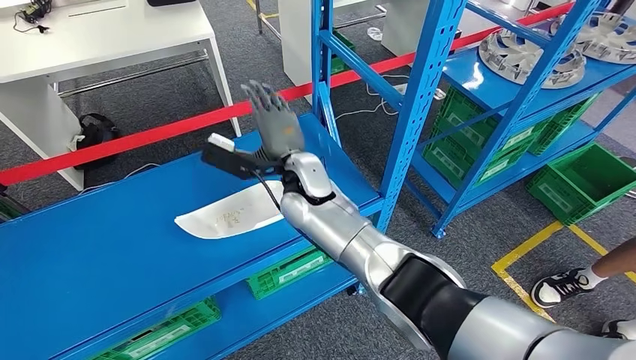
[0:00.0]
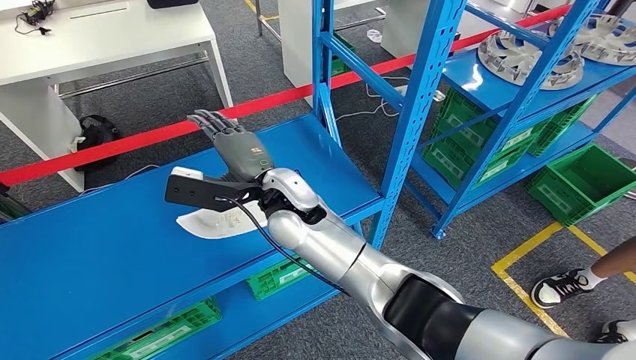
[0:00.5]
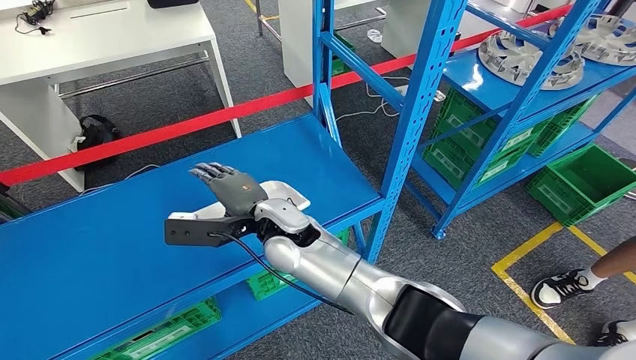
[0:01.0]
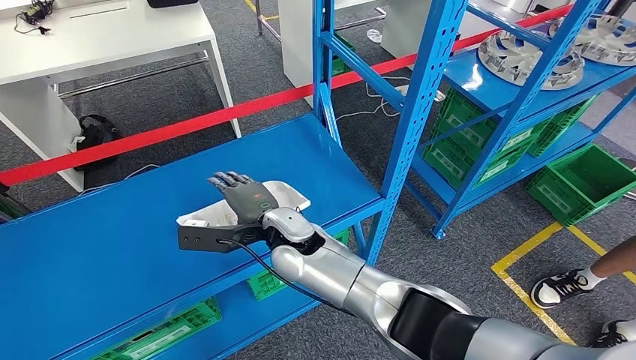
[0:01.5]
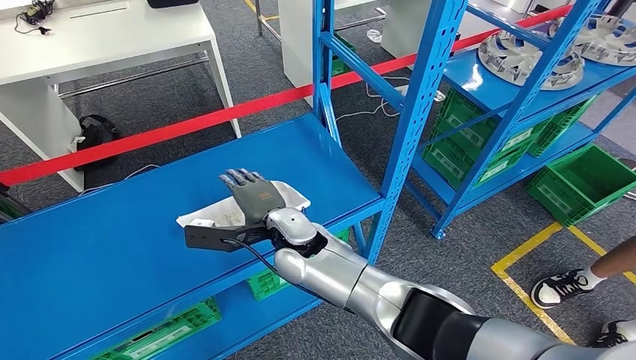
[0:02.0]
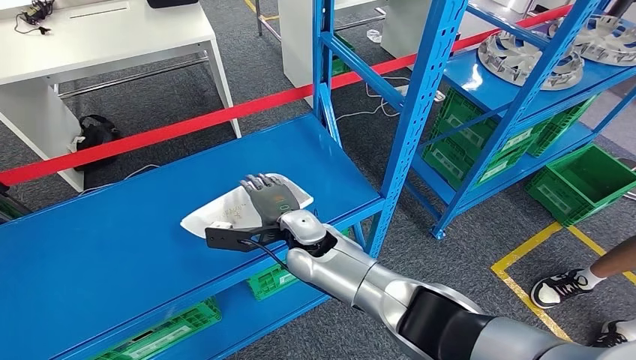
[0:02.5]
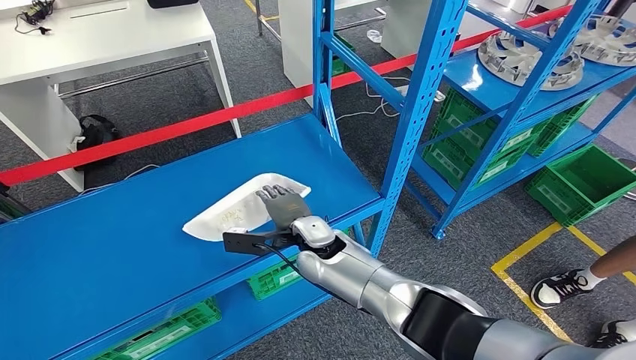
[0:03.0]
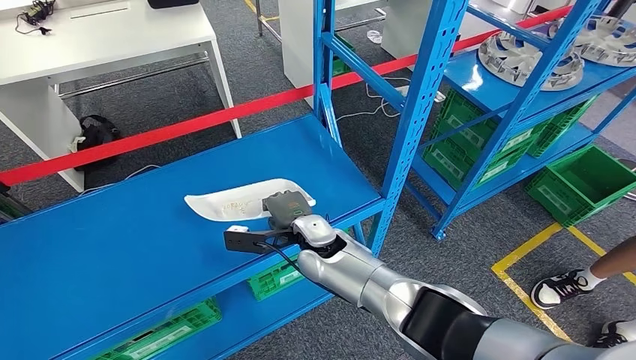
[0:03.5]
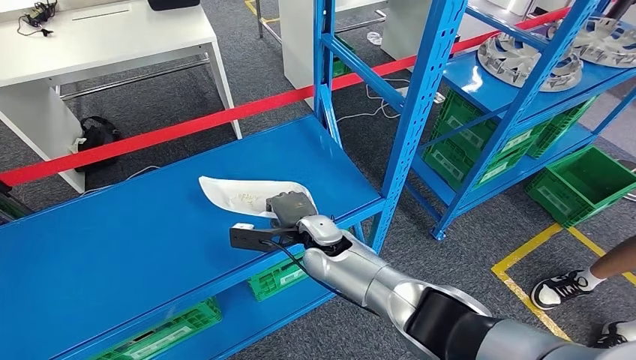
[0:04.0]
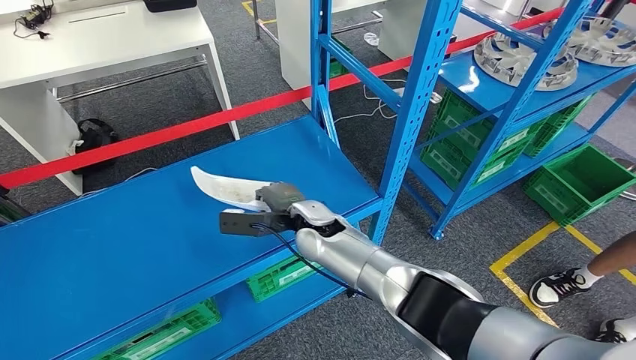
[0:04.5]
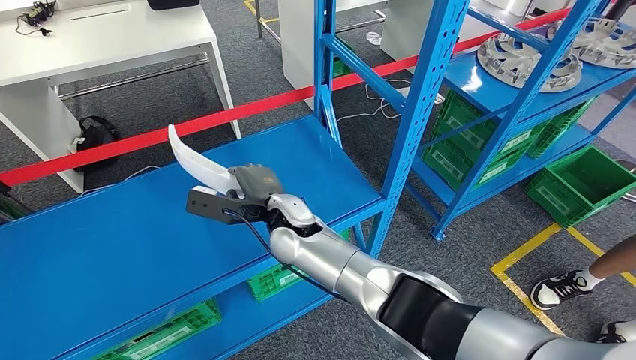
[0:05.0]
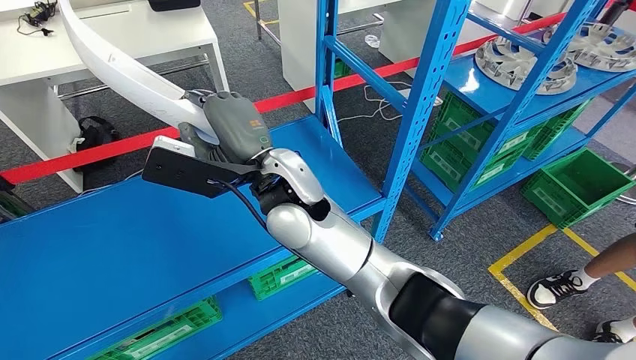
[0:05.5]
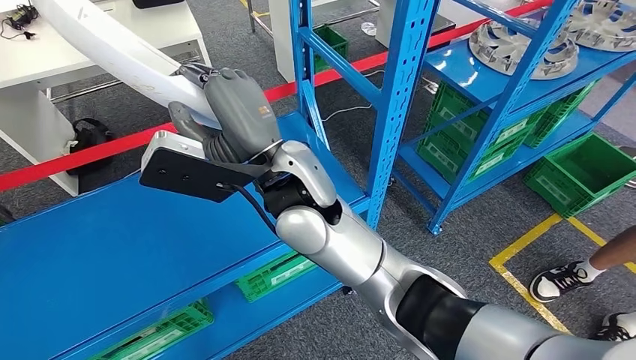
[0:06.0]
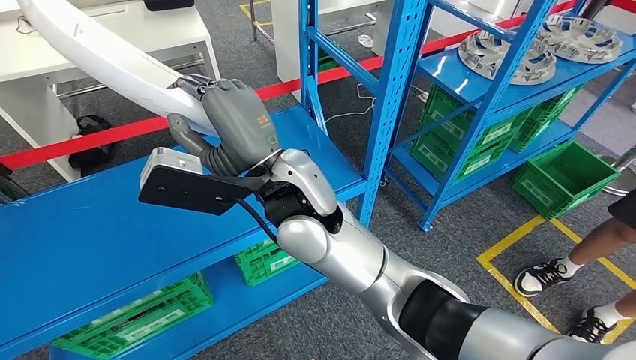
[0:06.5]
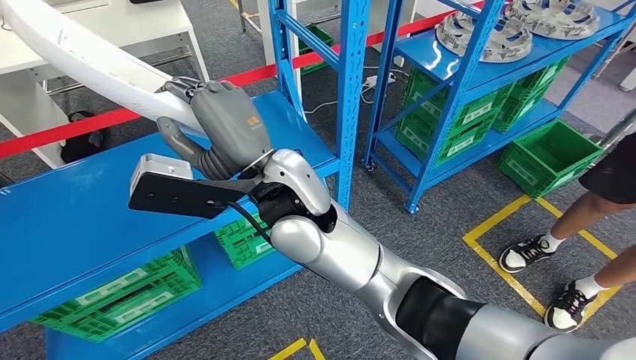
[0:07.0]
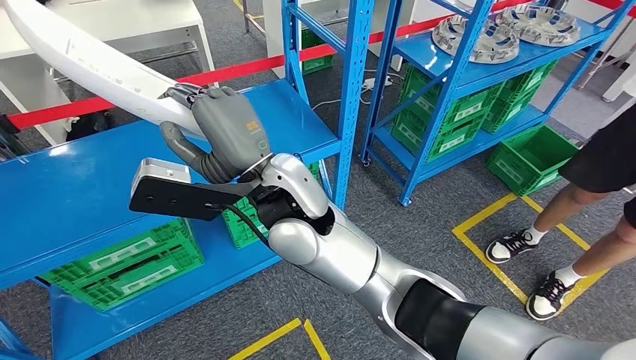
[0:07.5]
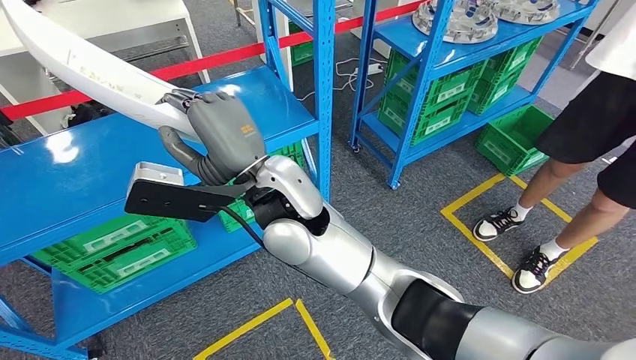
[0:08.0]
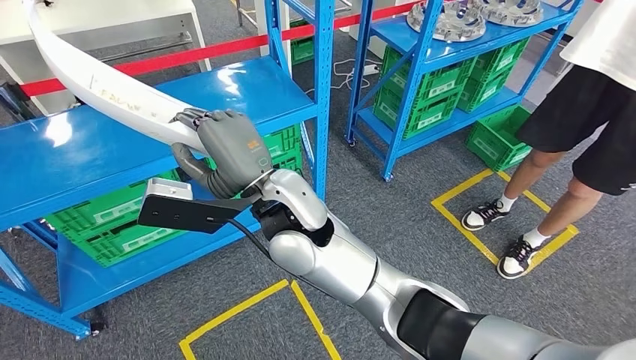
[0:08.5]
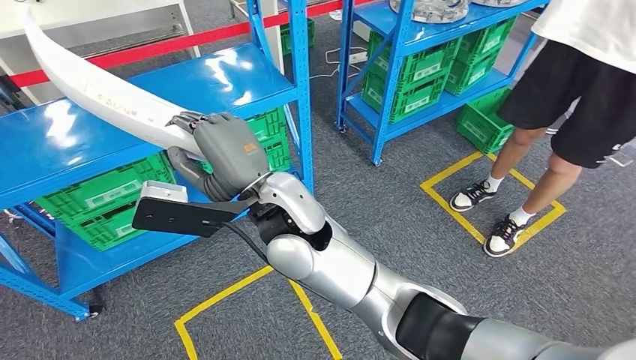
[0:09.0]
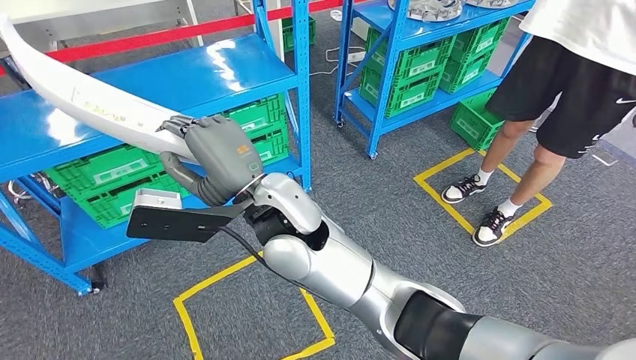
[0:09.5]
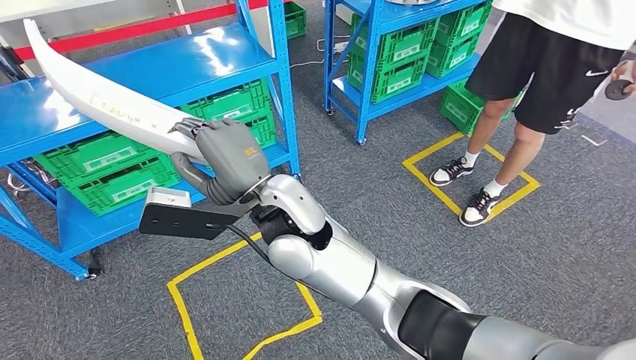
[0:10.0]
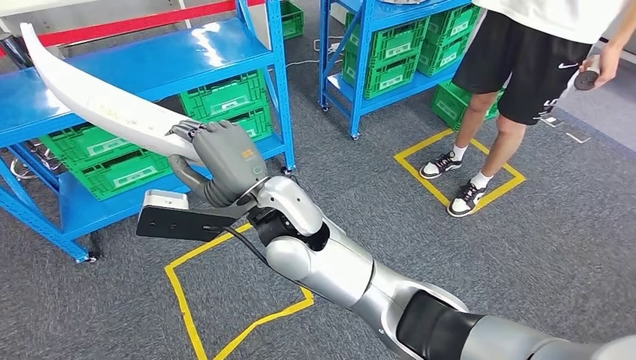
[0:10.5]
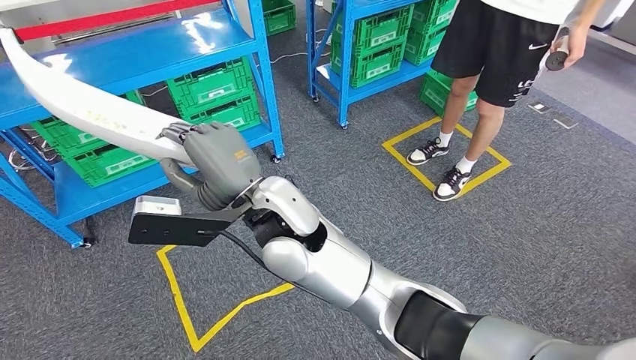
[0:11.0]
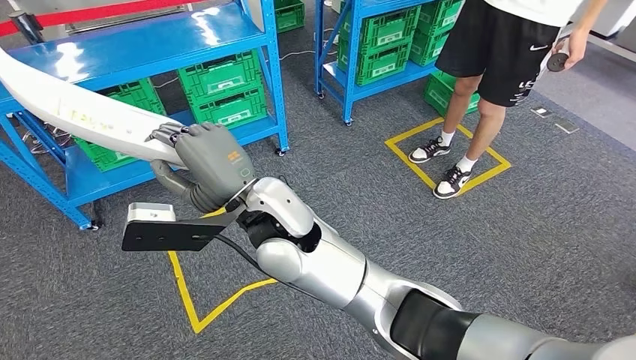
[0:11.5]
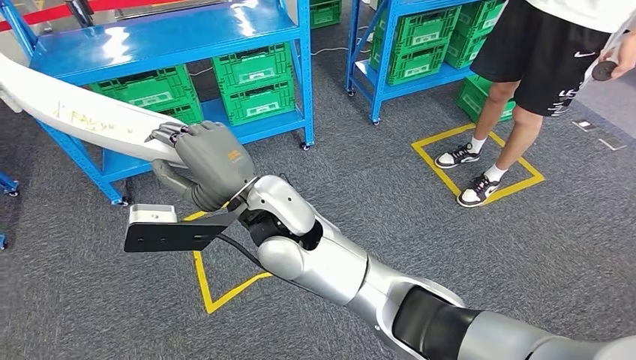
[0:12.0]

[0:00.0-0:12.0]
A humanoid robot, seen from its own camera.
Step, 0:00.0 to 0:06.0: Pick up the small component from the shelf.
0:00.0 to 0:02.0: The right hand travels backward by about 5 cm.
0:02.0 to 0:04.0: The right hand travels to the right and downward by approximately 10 cm.

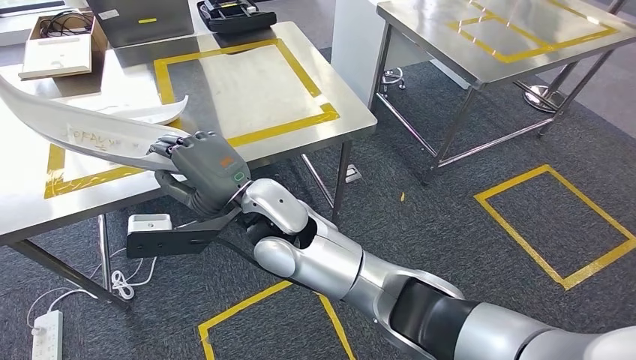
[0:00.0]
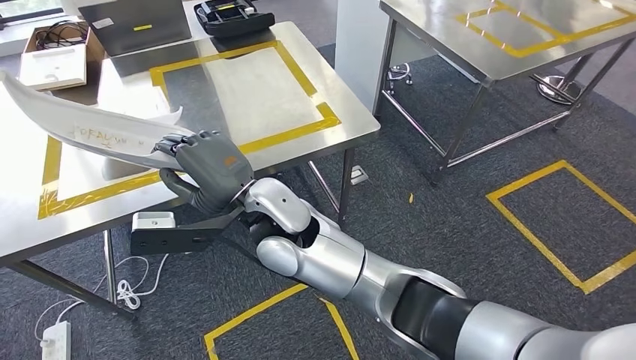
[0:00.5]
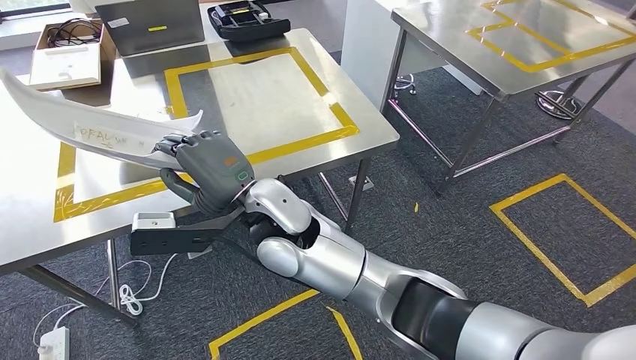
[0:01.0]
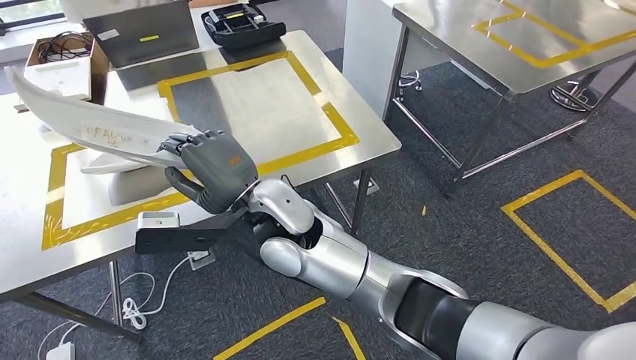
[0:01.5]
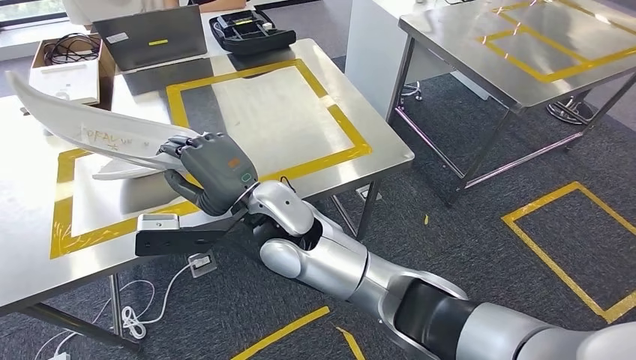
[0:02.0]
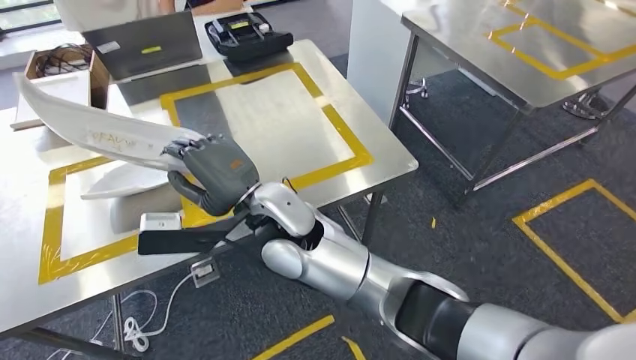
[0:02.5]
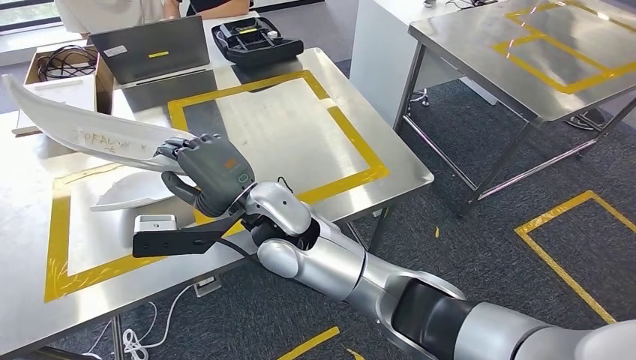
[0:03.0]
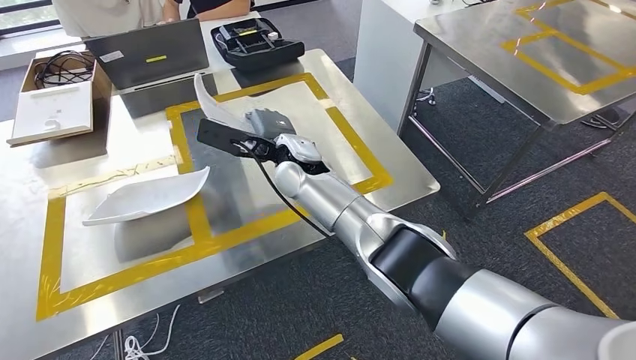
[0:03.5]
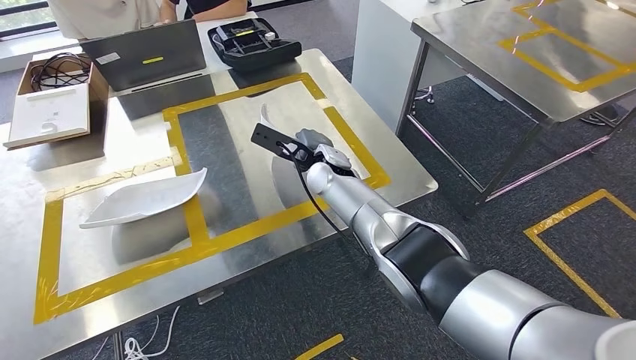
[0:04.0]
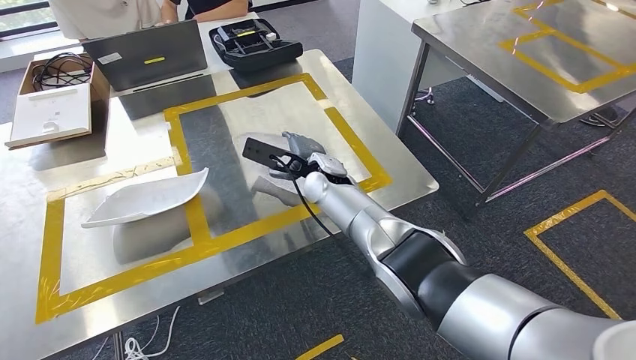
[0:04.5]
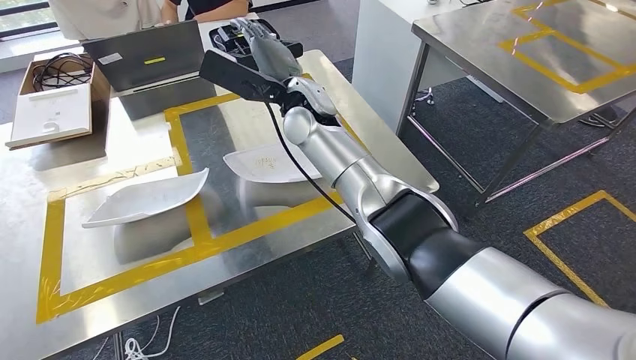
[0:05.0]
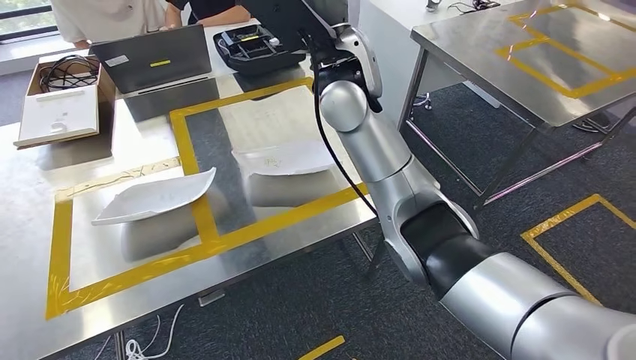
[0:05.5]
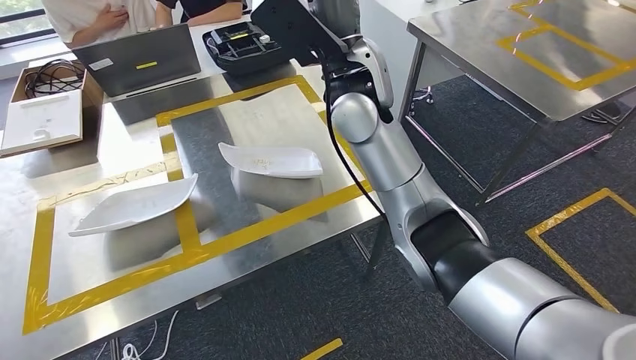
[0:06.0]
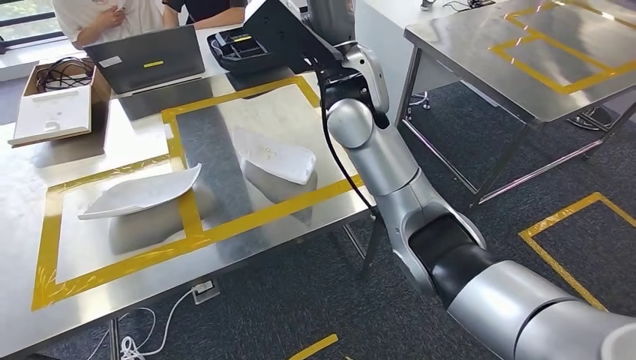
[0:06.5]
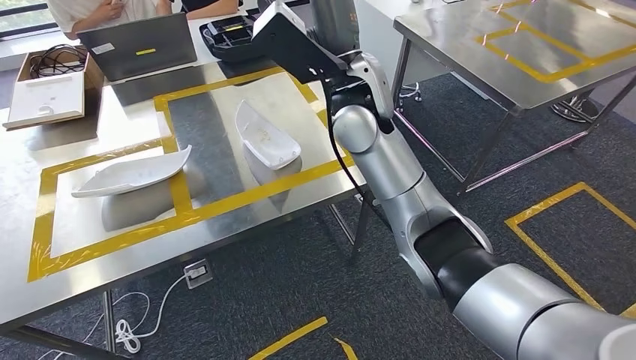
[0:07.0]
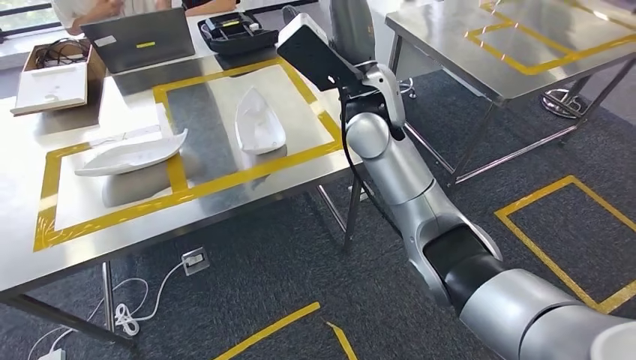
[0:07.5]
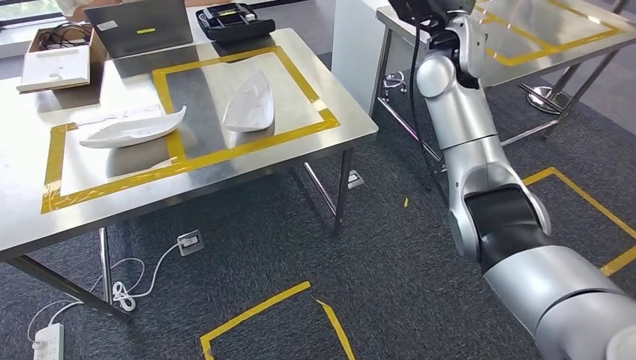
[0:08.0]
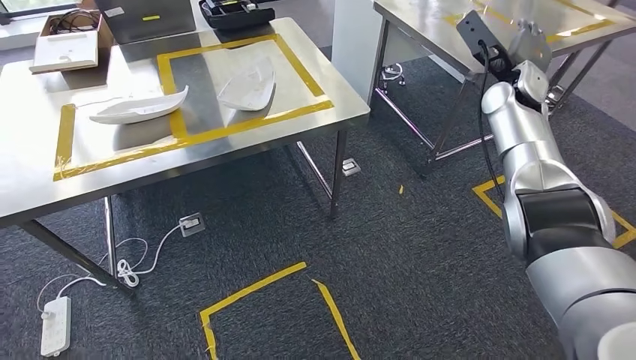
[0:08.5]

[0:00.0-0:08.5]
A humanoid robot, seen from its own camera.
Step, 0:00.0 to 0:03.0: Move the small component to the workbench.
Step, 0:03.5 to 0:05.5: Insert the small component into the corresponding slot on the workbench.
Step, 0:06.0 to 0:08.5: Return to the initial position at the workbench.
